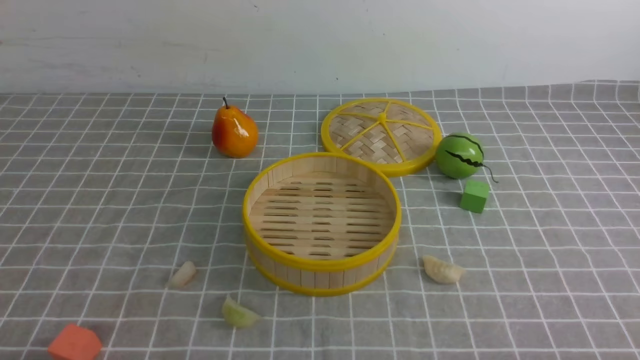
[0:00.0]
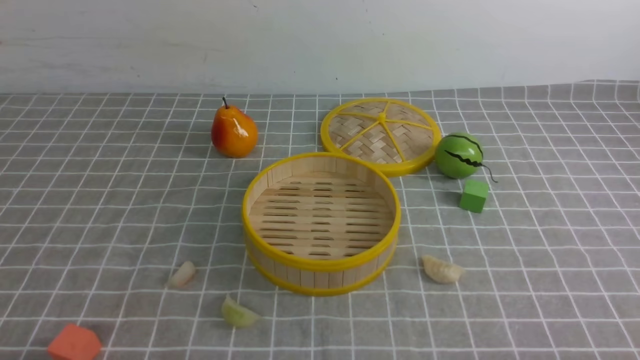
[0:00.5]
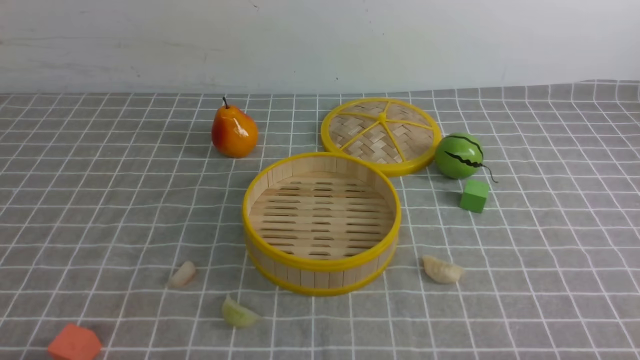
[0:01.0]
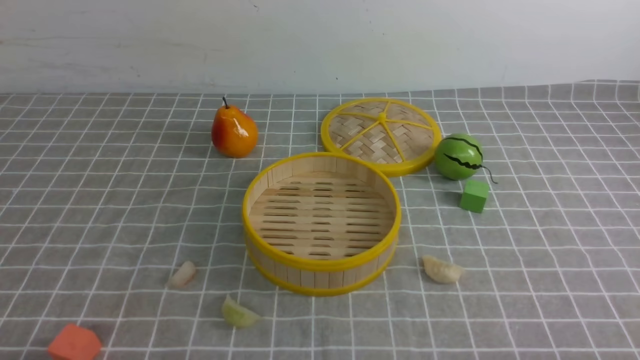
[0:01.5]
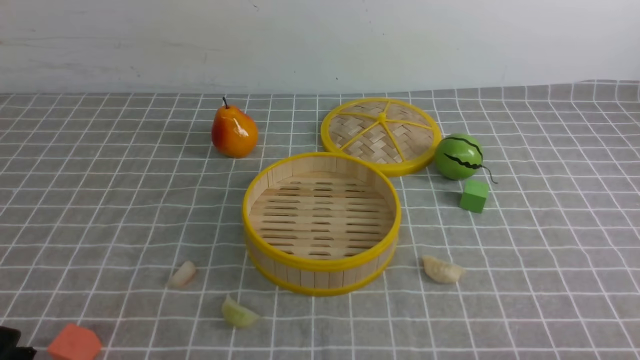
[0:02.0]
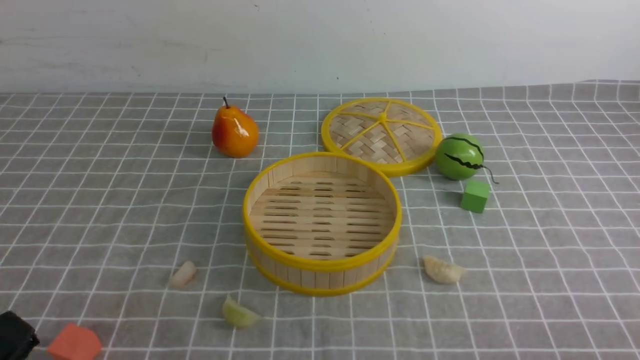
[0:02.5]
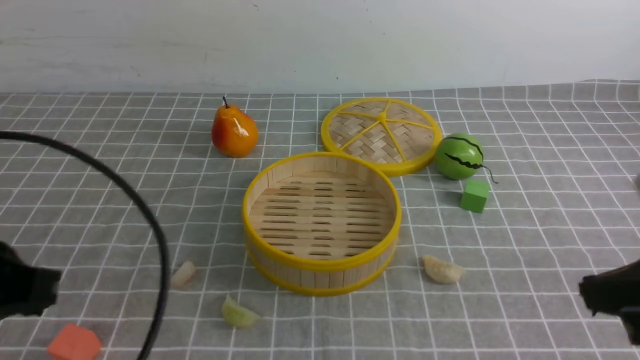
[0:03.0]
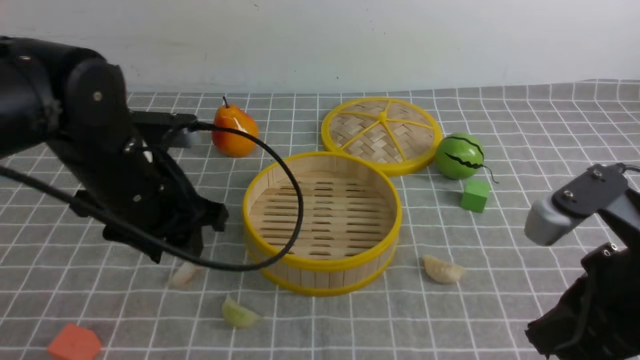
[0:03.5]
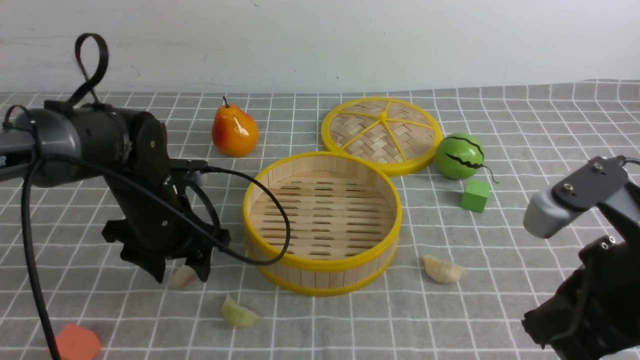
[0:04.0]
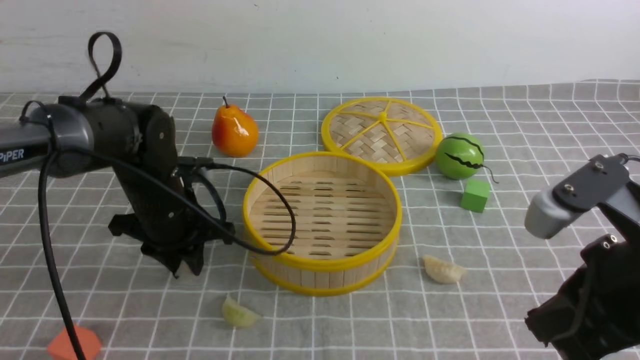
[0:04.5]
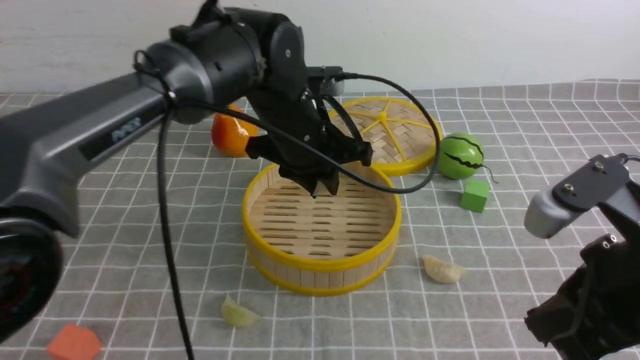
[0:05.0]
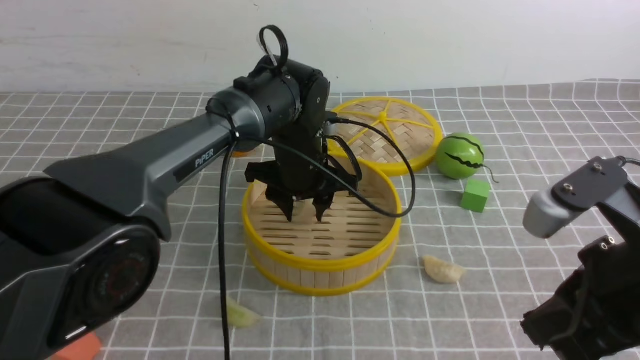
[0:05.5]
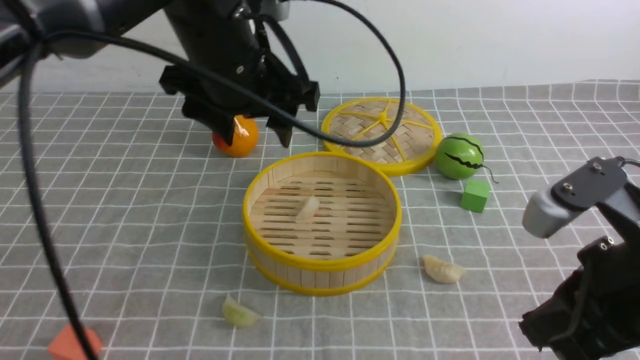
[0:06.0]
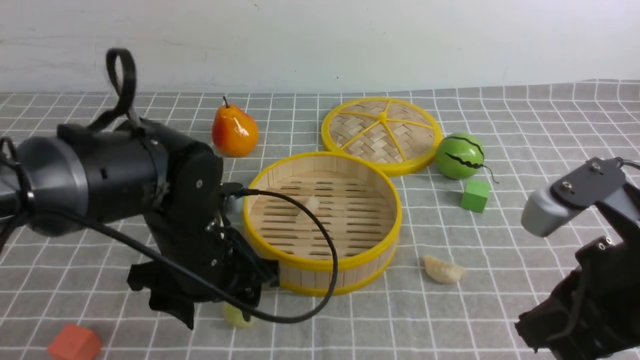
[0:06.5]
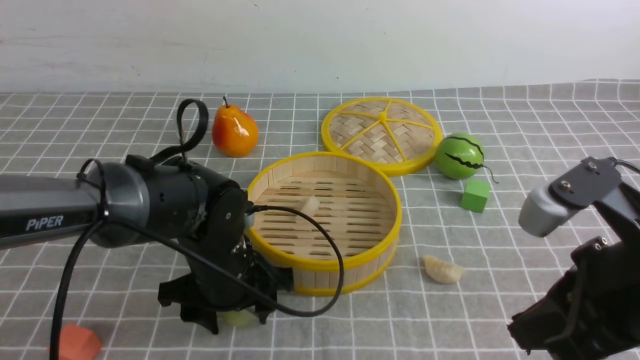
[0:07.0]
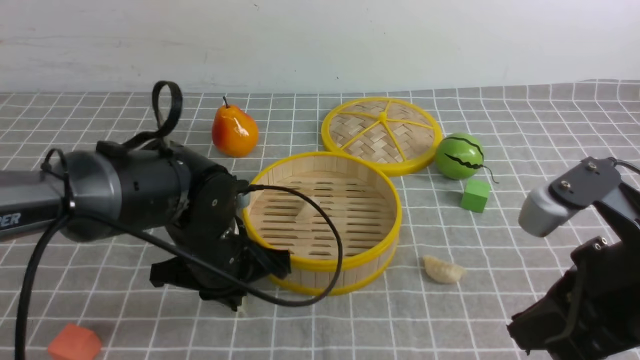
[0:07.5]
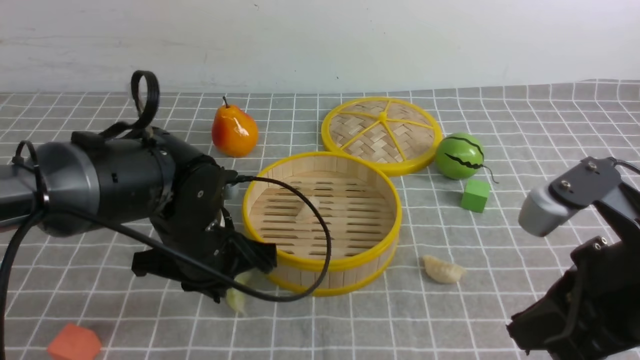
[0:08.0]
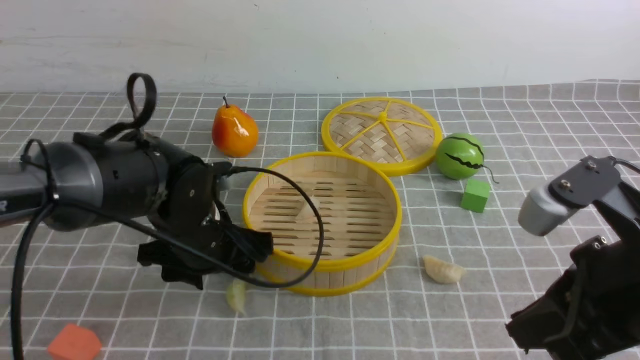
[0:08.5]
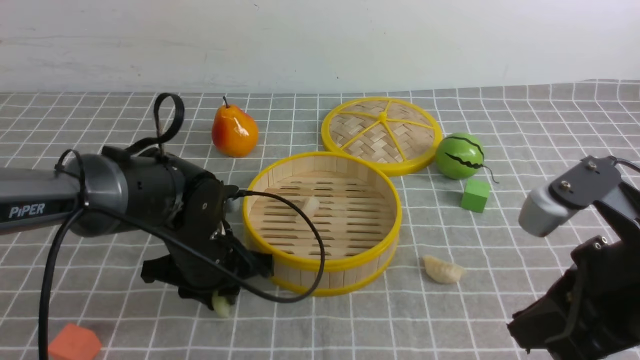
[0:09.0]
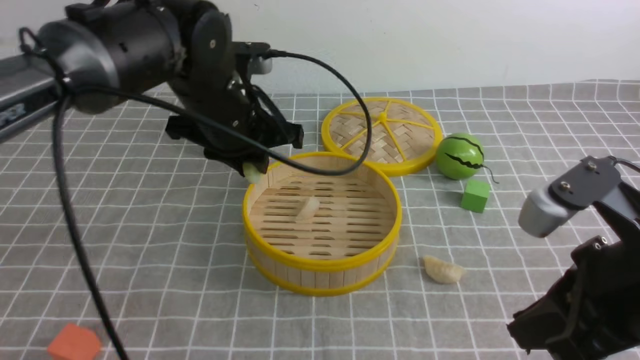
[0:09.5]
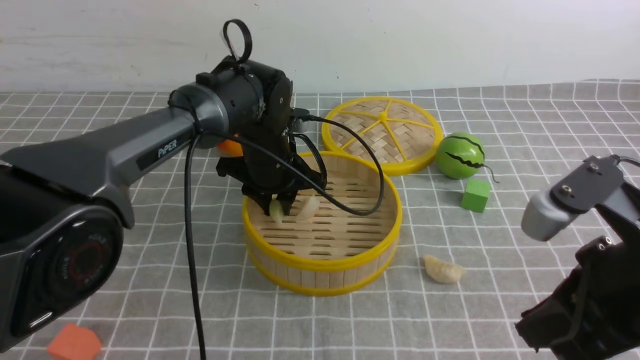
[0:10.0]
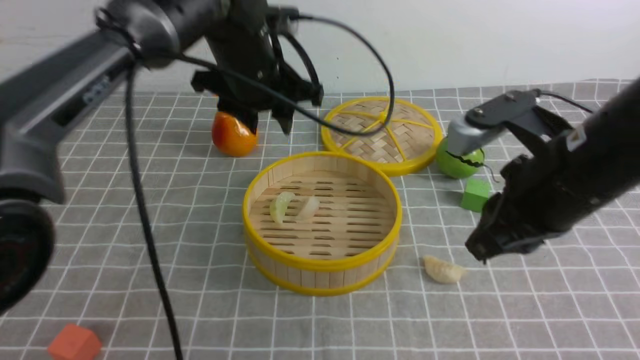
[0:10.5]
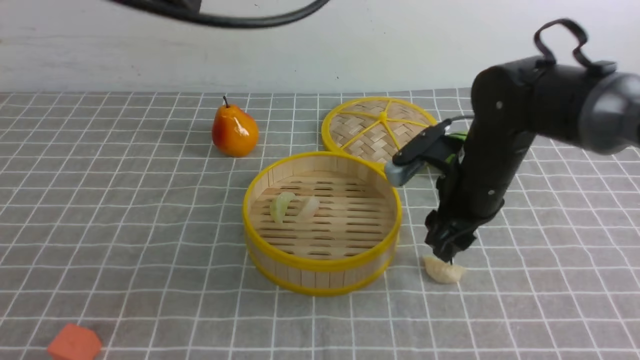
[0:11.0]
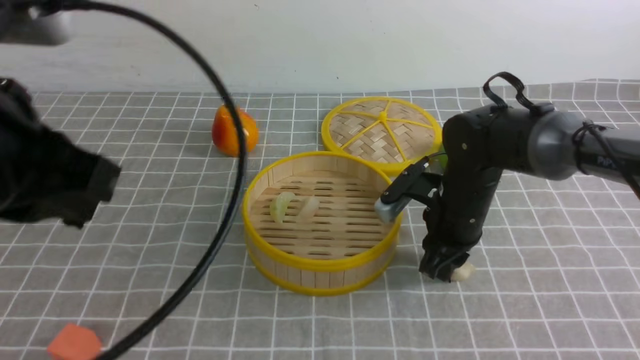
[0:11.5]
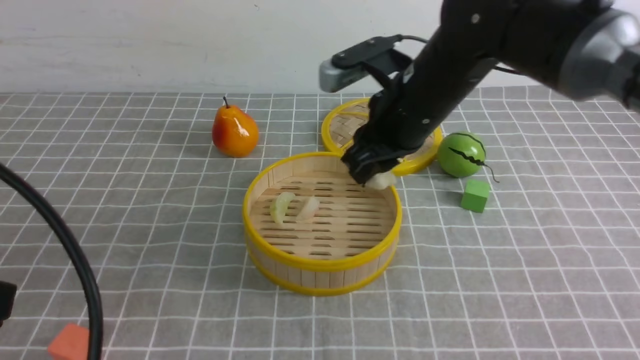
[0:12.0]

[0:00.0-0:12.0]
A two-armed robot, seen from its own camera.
Task of the whole recording: put the dumplings into the steamer on the table with the grey tablecloth.
Step, 0:00.0 to 0:04.0: use the left arm to grab a dumpling.
Step, 0:05.0 to 0:05.5: use the left arm to put the dumpling into the steamer.
Step, 0:06.0 to 0:09.0: use the left arm to grab a dumpling.
Step, 0:09.5 to 0:10.0: use the left arm to put the dumpling into the steamer.
Step, 0:10.5 to 0:11.5: use the right arm to grab a dumpling.
0:02.0 to 0:04.0: The left gripper heads forward, covering some 30 cm, and opens its fingers. The right gripper heads upward, forward and to the left, covering roughly 20 cm, and closes.
0:04.0 to 0:06.0: The left gripper swings up and down, roughly 15 cm each way, with 2 reversals, and closes and opens again.
0:06.0 to 0:08.0: The left gripper is displaced downward and backward by roughly 15 cm, and closes up.
0:08.0 to 0:10.0: The left gripper goes some 15 cm forward, and opens its fingers.
0:10.0 to 0:12.0: The left gripper goes approximately 40 cm backward, upward and to the left, and closes its fingers, while the right gripper heads forward and to the left, covering about 25 cm.

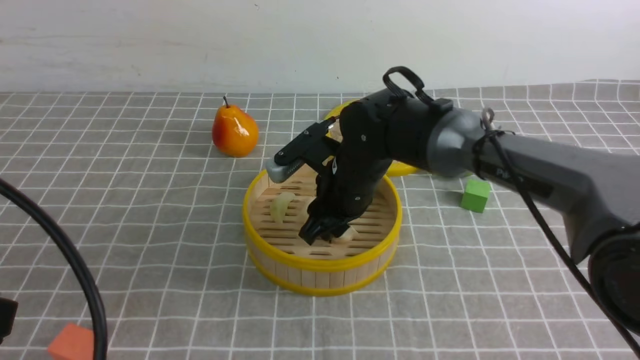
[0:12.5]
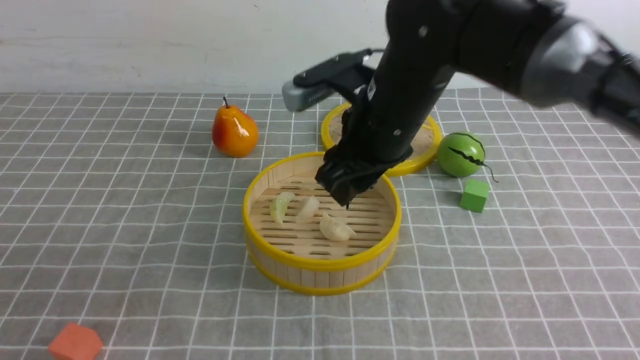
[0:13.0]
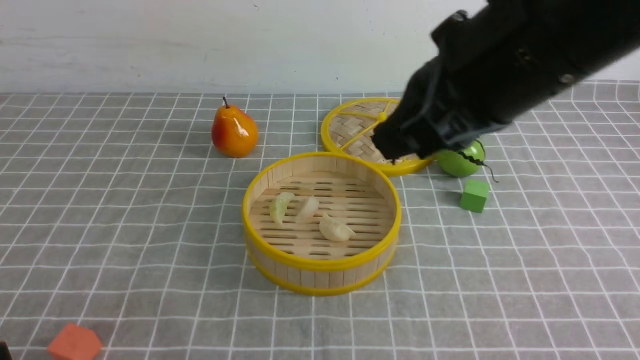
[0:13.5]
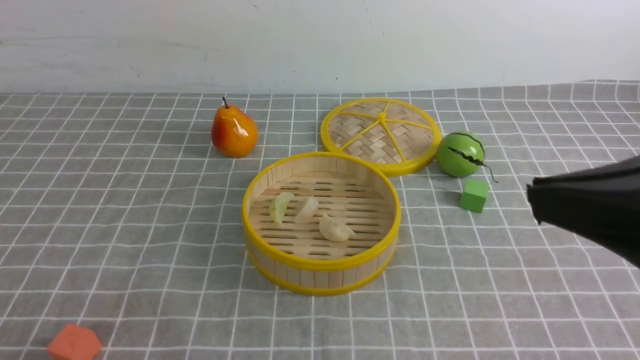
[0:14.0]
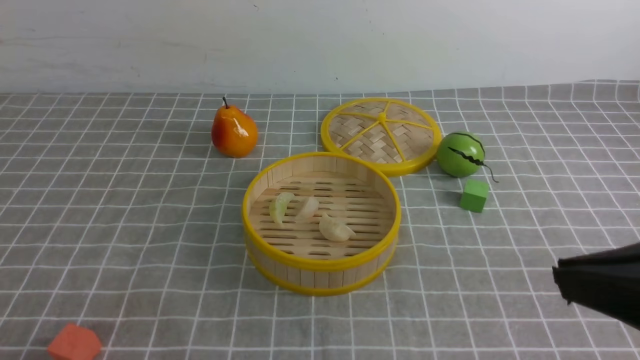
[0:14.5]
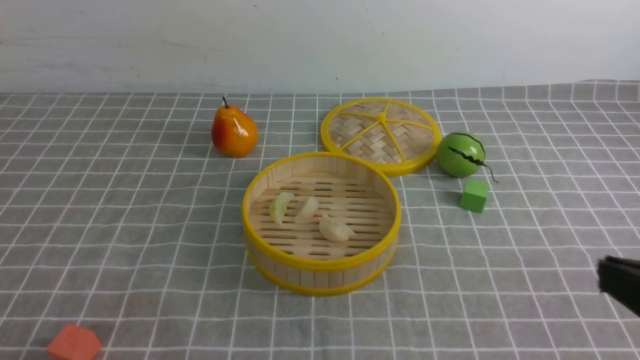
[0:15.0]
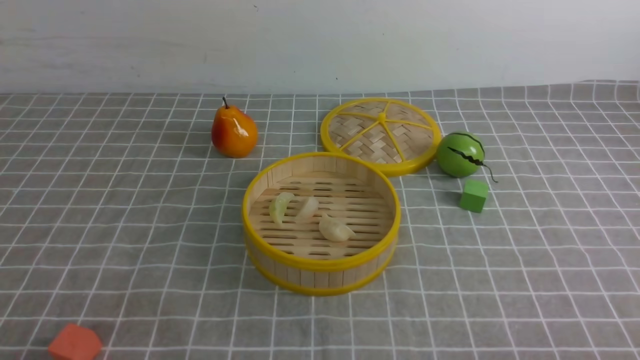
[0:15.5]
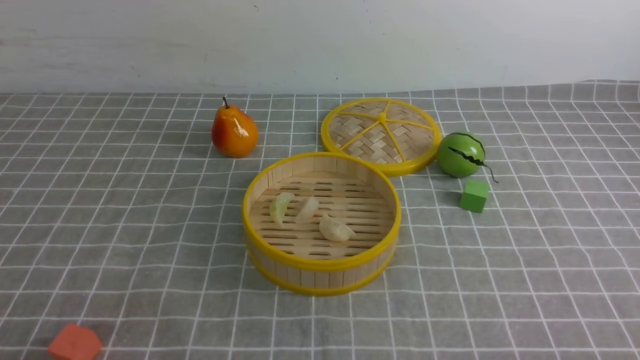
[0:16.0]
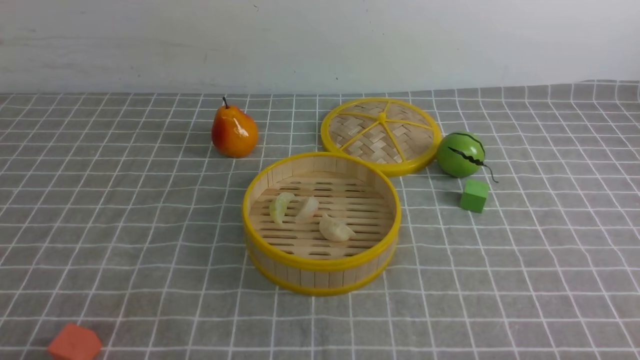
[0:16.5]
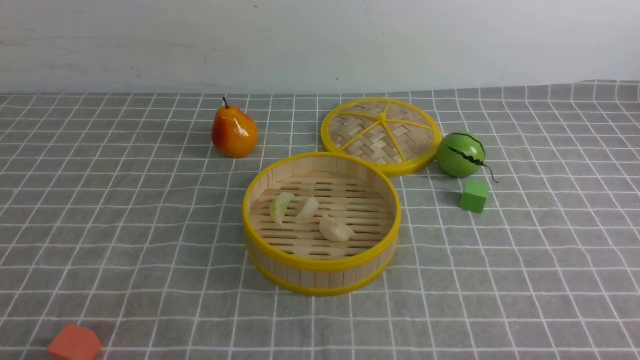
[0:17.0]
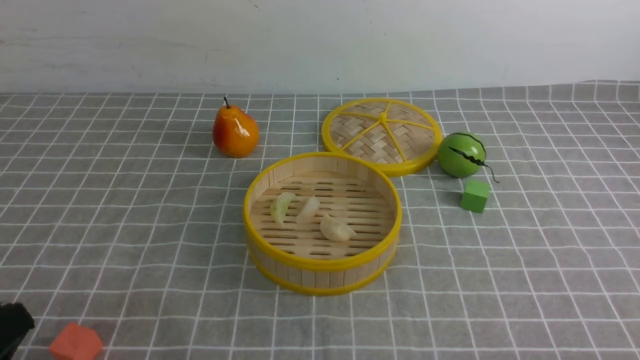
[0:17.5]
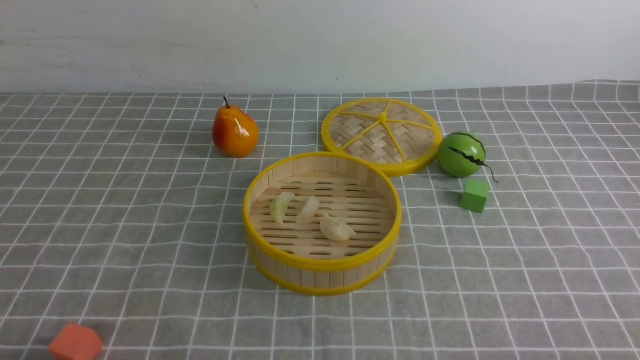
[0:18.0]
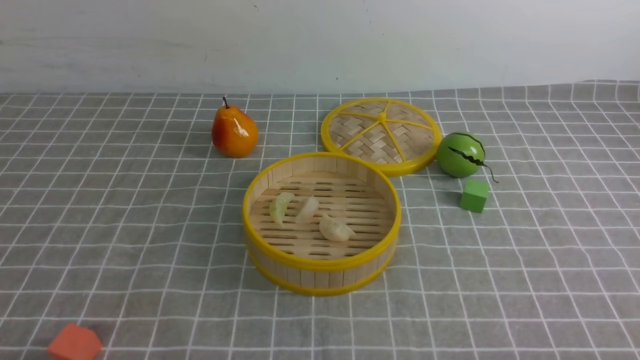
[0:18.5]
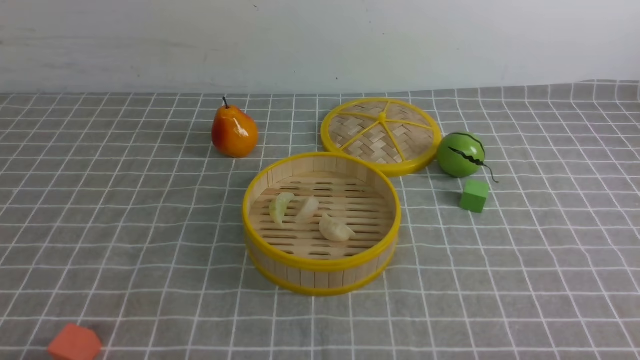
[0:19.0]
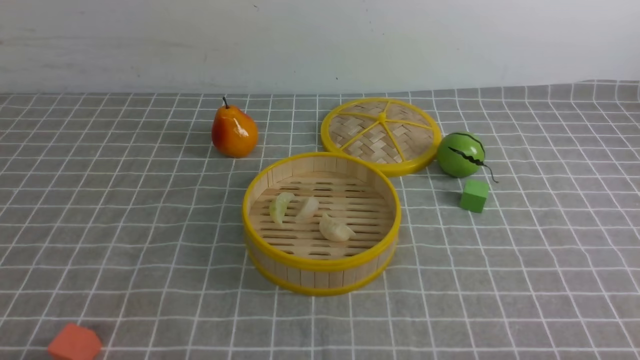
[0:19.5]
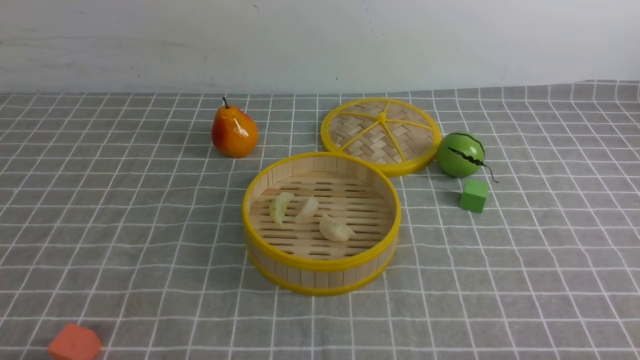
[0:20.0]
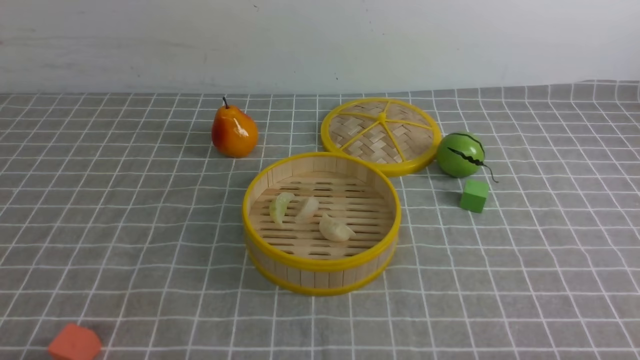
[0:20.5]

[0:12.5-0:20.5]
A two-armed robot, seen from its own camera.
Task of the whole recording: put the dumplings into the steamer on the table with the grey tablecloth.
0:12.5 to 0:14.5: The right gripper travels backward, to the right and upward by roughly 40 cm, and closes its fingers, while the left gripper heads downward and backward, covering approximately 10 cm.
0:14.5 to 0:16.5: The right gripper shifts roughly 25 cm downward and to the right.
0:18.5 to 0:20.5: Both grippers stay about where they are.
